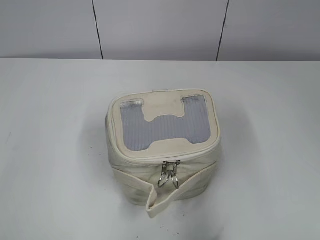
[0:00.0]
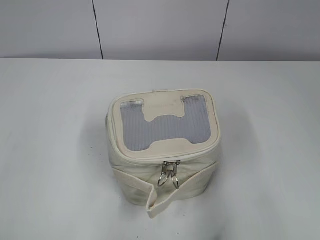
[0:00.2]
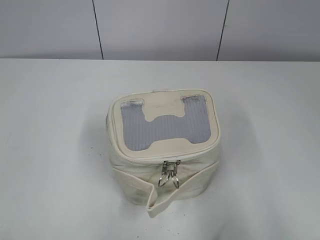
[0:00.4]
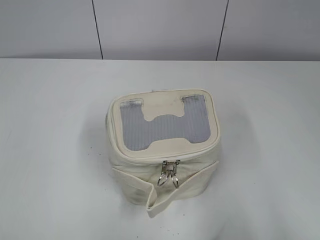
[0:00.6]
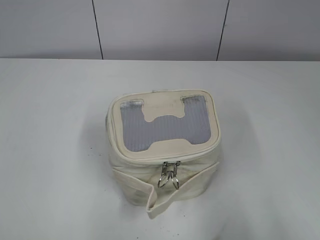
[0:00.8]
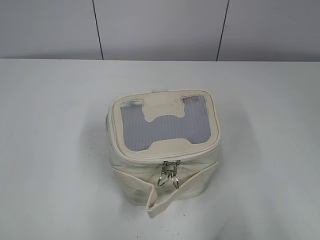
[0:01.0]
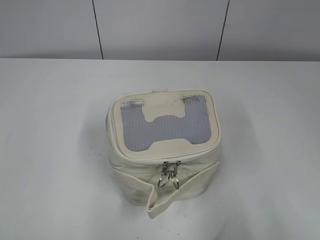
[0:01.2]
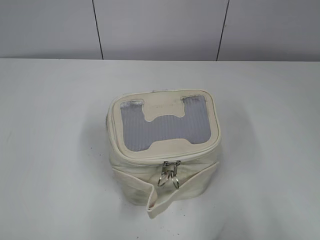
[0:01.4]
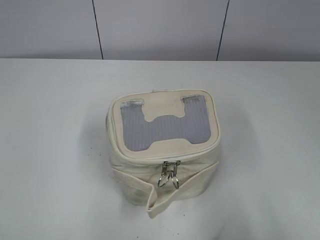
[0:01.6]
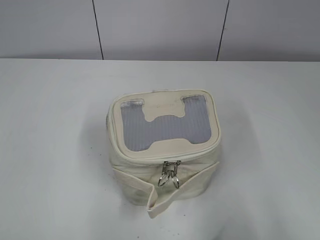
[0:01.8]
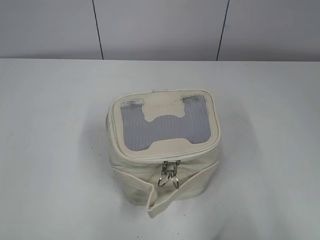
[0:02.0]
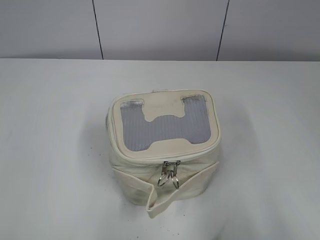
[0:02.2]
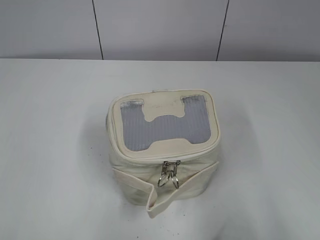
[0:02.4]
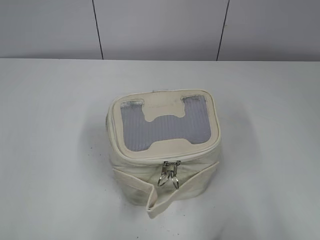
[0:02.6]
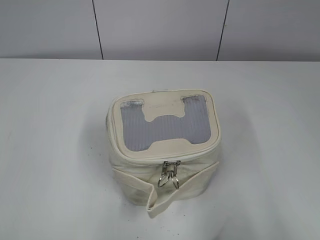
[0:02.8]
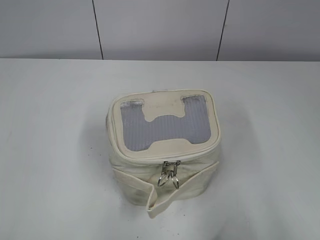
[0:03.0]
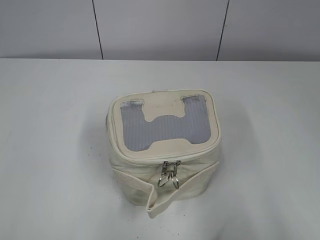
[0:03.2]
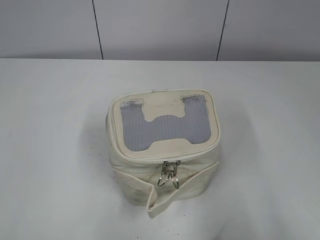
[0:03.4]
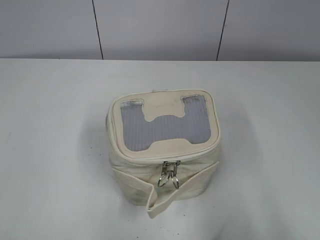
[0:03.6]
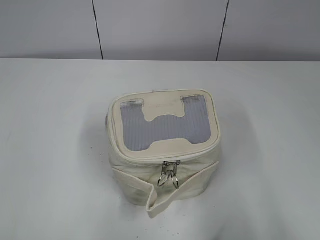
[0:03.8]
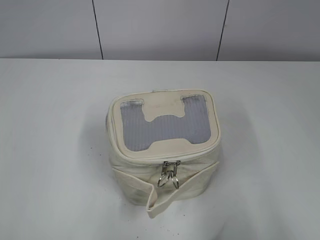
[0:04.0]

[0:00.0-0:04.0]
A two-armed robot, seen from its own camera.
0:00.0 to 0:01.4: The left gripper heads backward, covering some 10 cm. The right gripper is displaced backward by roughly 10 cm.
0:02.6 to 0:04.0: Both grippers stay put.

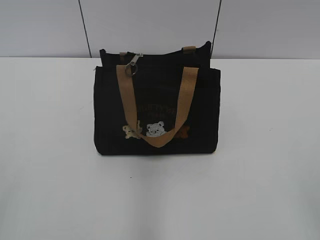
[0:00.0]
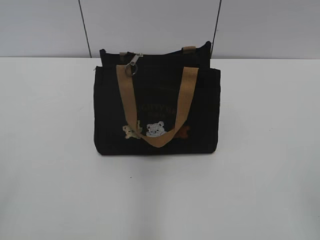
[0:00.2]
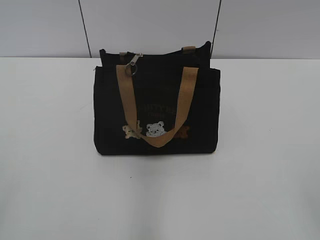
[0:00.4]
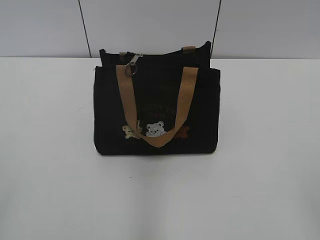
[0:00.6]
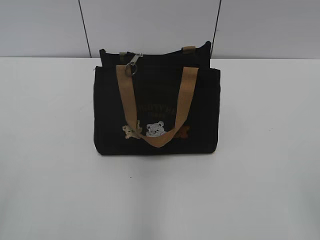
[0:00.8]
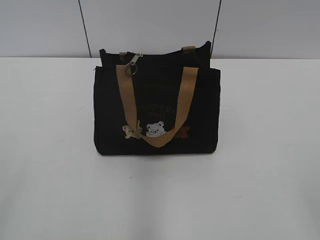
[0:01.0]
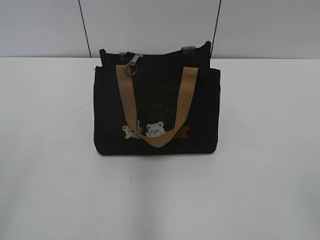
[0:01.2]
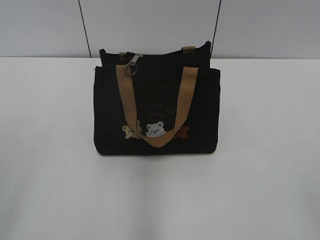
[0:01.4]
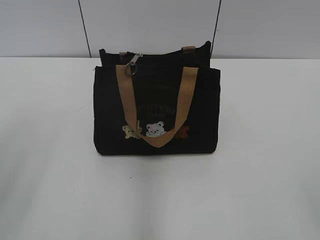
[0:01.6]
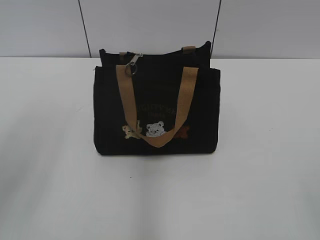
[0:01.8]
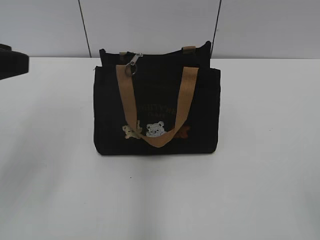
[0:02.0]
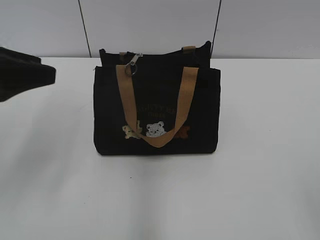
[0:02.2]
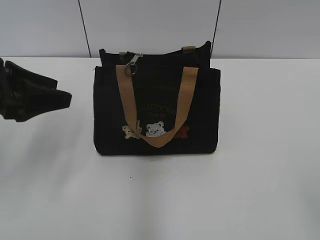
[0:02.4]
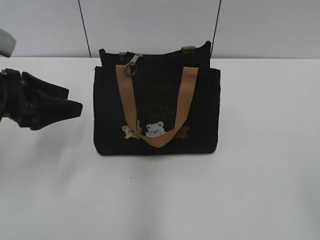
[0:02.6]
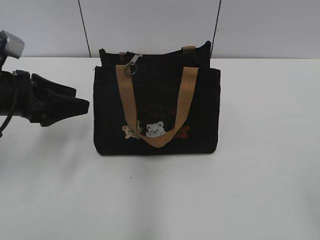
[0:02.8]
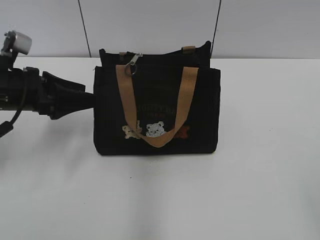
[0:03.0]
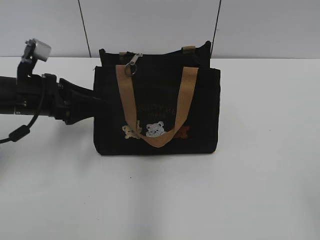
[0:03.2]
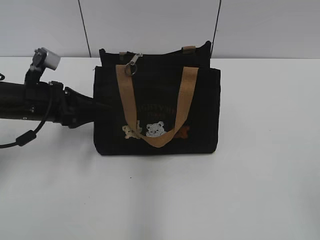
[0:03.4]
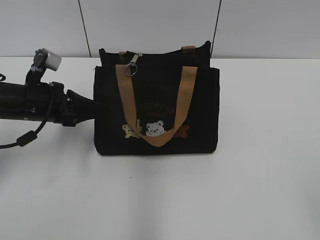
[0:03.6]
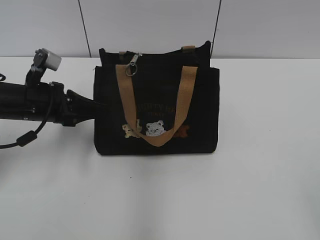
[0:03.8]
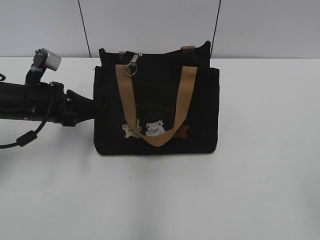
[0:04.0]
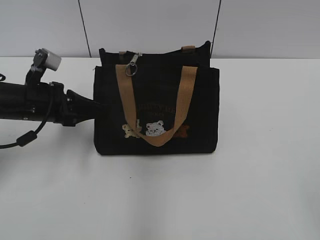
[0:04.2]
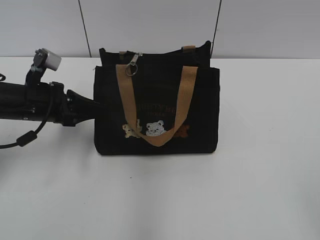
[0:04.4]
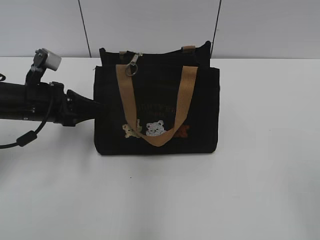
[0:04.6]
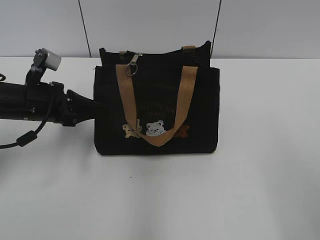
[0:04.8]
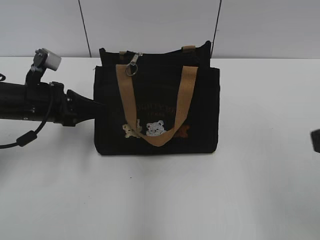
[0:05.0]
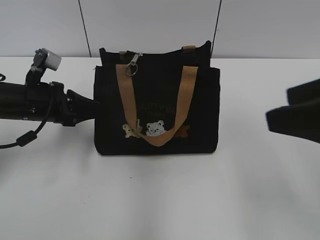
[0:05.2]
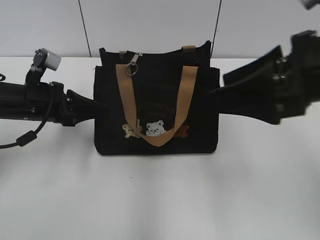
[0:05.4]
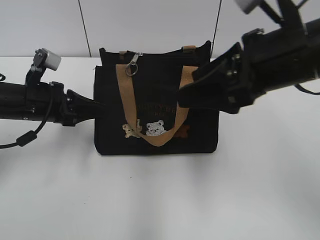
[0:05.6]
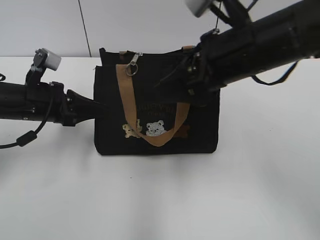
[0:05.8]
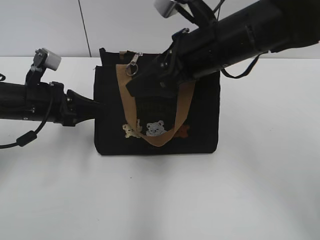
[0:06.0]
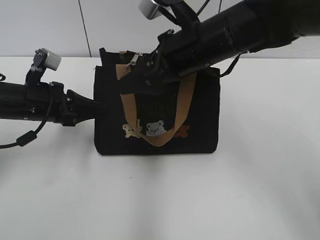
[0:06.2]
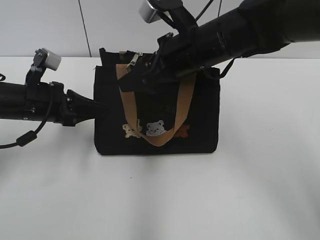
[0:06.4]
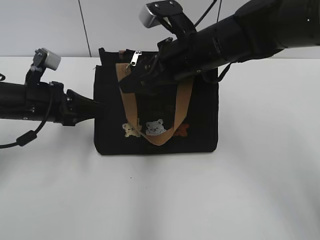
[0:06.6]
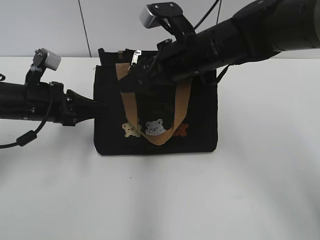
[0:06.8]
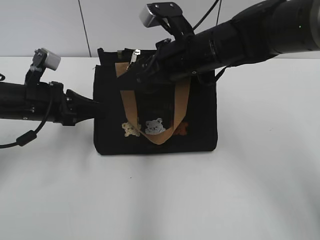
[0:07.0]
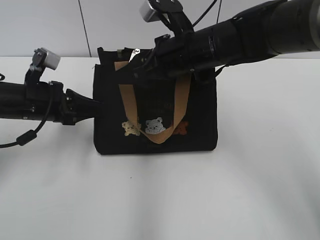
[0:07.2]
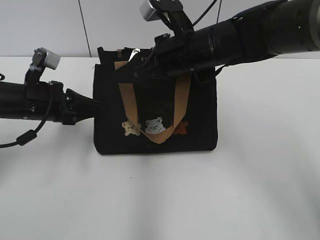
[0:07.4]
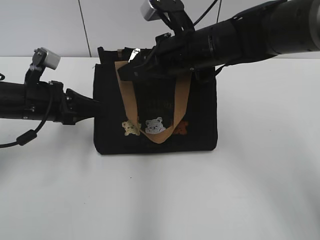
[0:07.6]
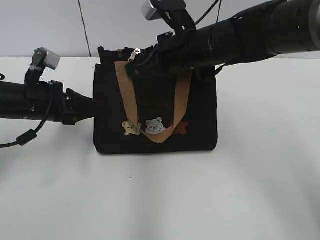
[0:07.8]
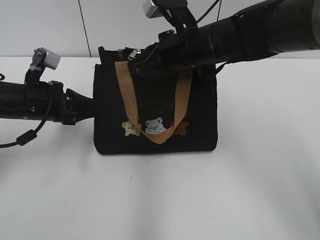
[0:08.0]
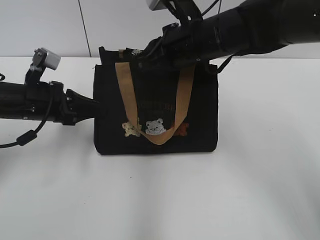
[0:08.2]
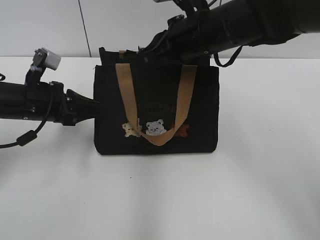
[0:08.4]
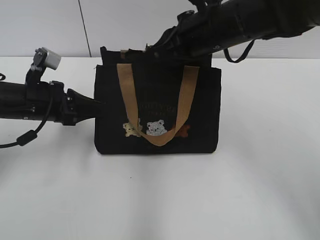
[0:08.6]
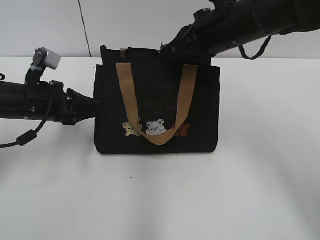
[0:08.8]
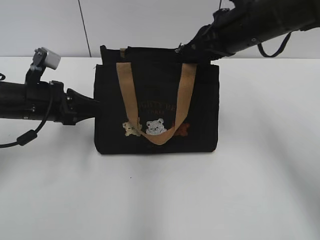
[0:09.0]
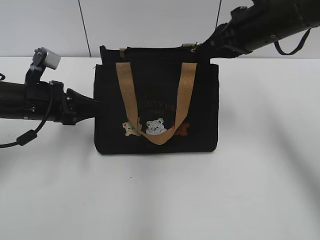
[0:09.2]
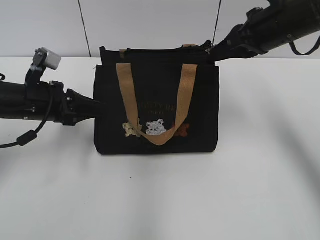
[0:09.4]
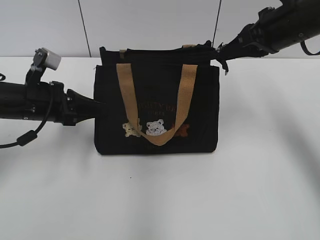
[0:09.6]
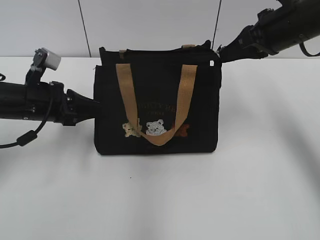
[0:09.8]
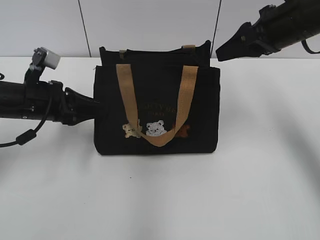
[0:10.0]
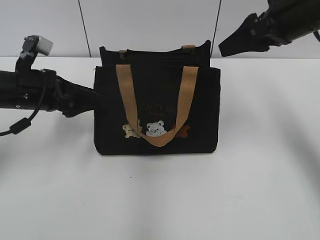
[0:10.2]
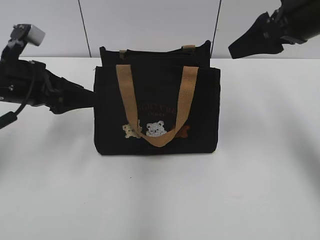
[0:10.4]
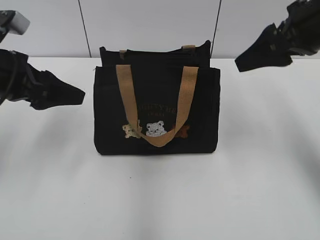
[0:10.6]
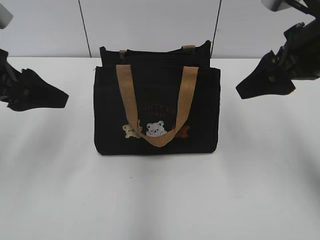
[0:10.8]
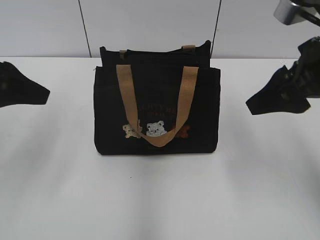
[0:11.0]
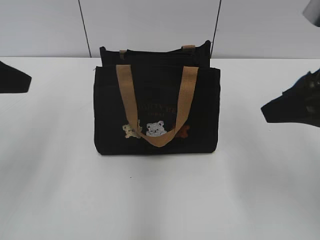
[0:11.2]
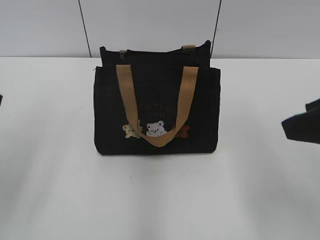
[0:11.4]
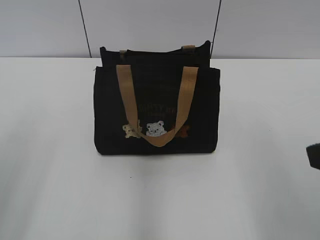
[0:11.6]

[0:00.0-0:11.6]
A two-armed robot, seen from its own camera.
Step, 0:00.0 to 0:09.8: Pull open the zipper with your right hand.
Step, 0:10.2 to 0:10.4: Hold the bag with your left hand.
0:01.4 to 0:02.8: The left gripper heads forward and downward, covering some 25 cm.
0:02.8 to 0:04.4: The left gripper changes place by roughly 5 cm, and closes up.
0:04.4 to 0:05.8: The right gripper travels forward and to the left by some 35 cm.
0:05.8 to 0:07.2: The right gripper goes roughly 10 cm forward, to the left and downward.
0:07.2 to 0:08.8: The right gripper moves approximately 5 cm, and closes.
0:08.8 to 0:10.2: The left gripper opens up; the right gripper heads to the right, covering roughly 10 cm, and opens its fingers.
0:10.2 to 0:11.6: The left gripper shifts some 25 cm backward and upward. The right gripper travels backward by about 25 cm.

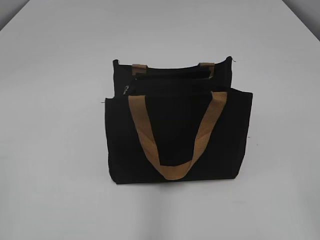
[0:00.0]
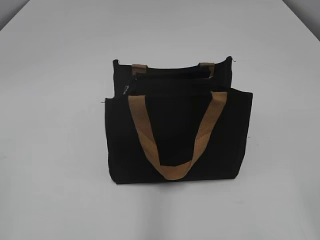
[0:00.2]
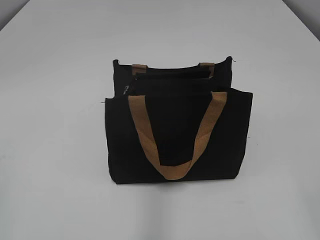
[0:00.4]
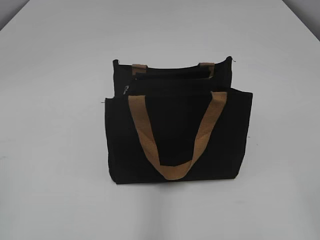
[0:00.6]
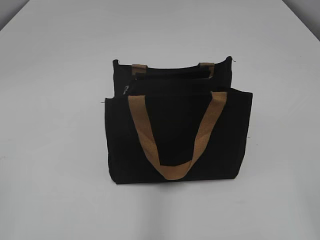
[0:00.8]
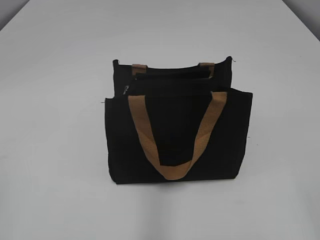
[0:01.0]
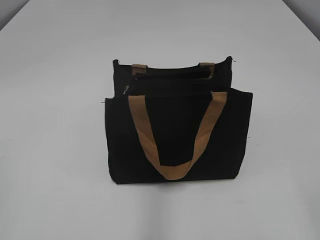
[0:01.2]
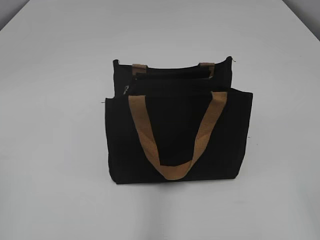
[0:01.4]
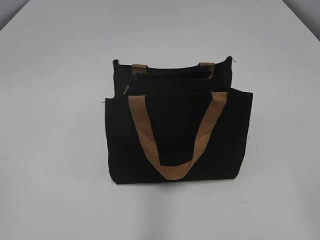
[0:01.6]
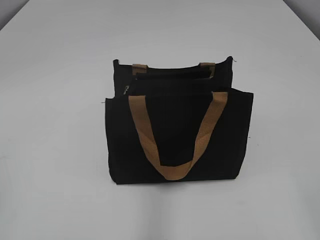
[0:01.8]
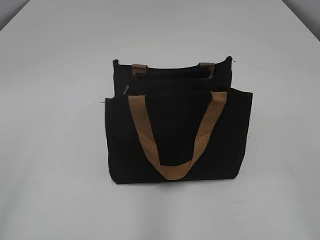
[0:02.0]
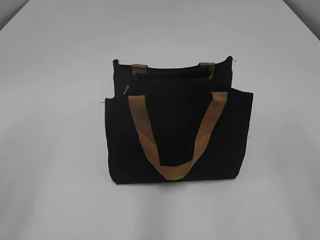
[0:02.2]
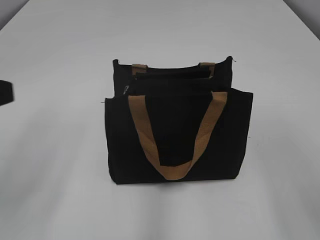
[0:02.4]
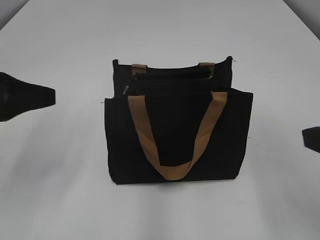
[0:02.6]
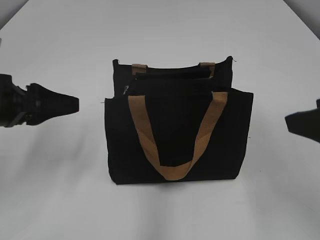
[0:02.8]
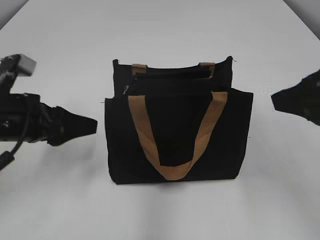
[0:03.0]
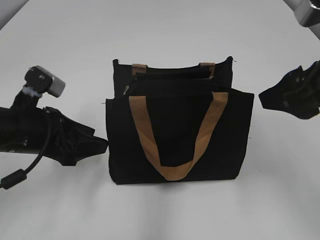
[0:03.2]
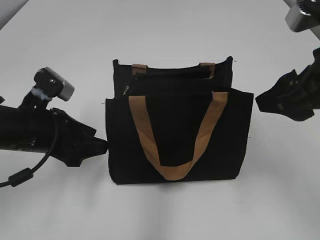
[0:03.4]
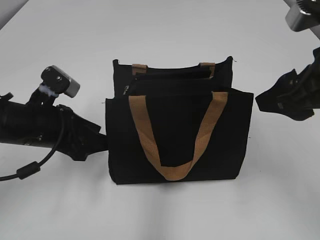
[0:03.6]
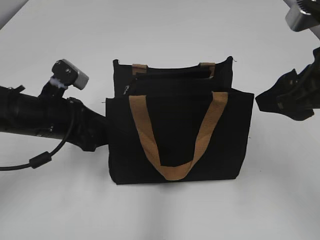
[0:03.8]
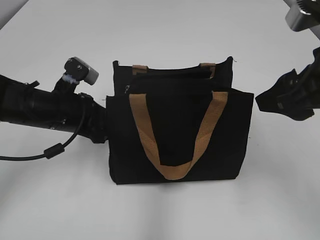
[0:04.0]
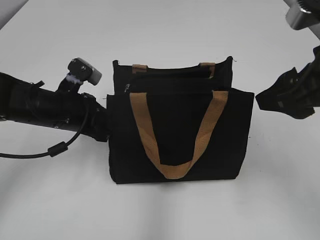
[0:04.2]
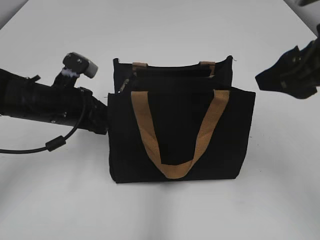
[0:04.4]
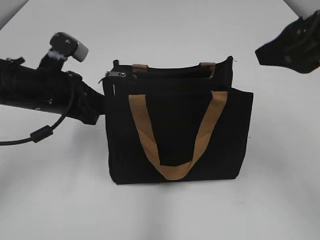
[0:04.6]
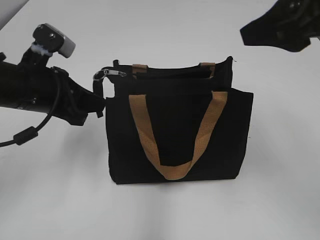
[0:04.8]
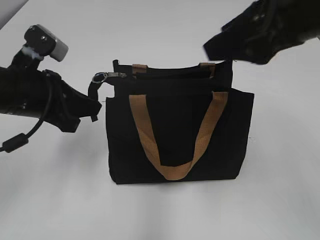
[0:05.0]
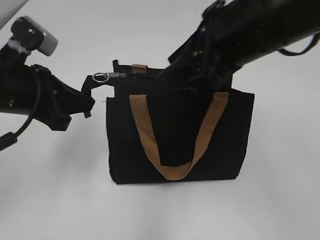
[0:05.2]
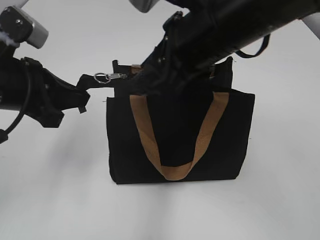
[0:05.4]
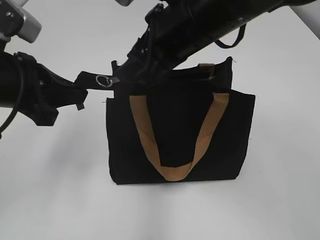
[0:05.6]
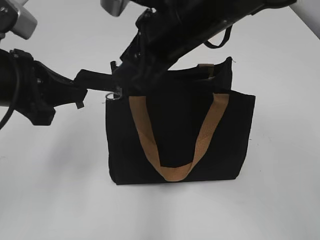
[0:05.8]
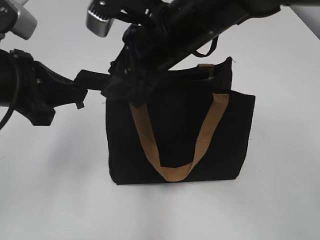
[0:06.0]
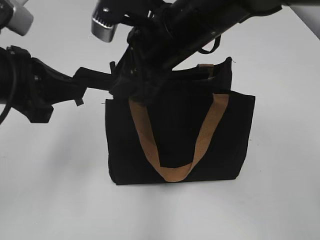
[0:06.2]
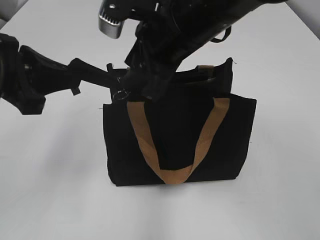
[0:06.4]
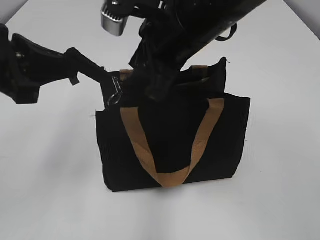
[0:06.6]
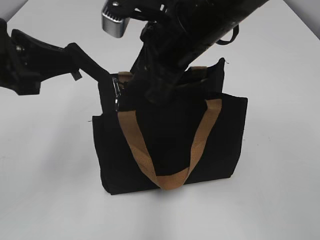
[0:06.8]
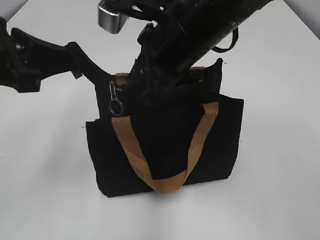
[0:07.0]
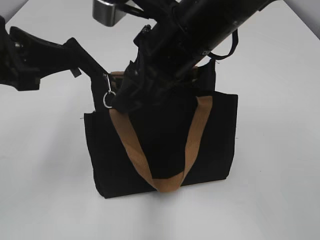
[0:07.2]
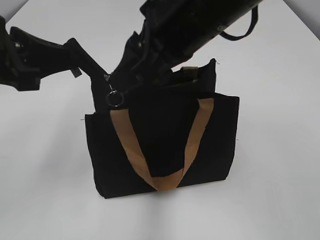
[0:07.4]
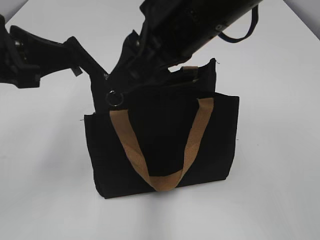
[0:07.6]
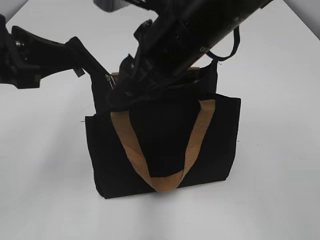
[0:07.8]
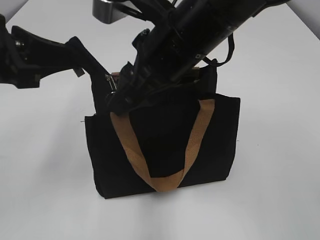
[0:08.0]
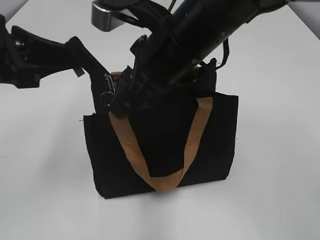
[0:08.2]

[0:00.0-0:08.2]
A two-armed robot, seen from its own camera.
0:01.6 to 0:03.2: The left gripper moves forward, downward and to the right, some 30 cm, and opens up; the right gripper goes roughly 20 cm forward.
0:03.2 to 0:05.0: The right gripper moves to the left and upward, about 5 cm; the left gripper closes up.
0:05.0 to 0:06.6: The right gripper moves to the left, forward and downward, some 15 cm. Meanwhile the left gripper moves upward, approximately 10 cm.
